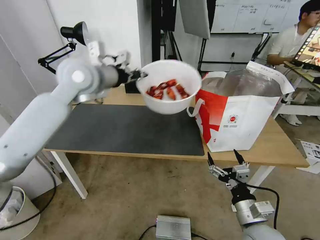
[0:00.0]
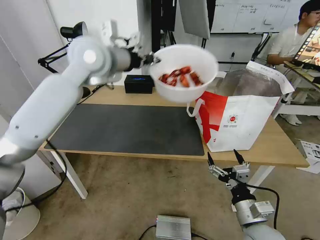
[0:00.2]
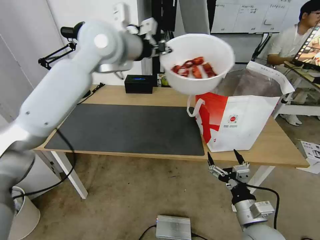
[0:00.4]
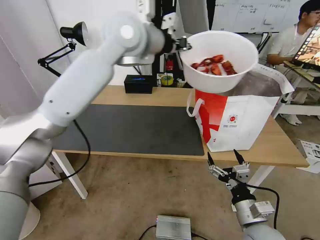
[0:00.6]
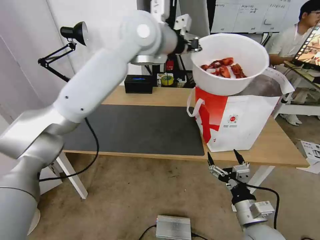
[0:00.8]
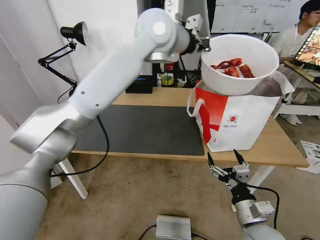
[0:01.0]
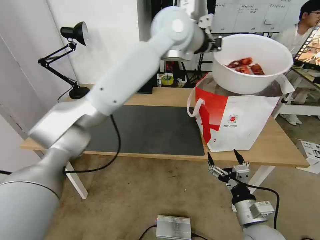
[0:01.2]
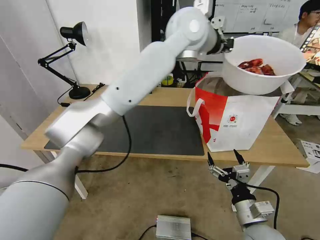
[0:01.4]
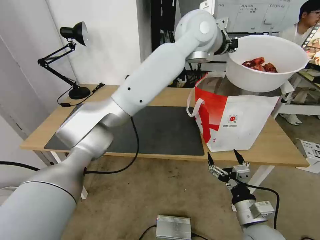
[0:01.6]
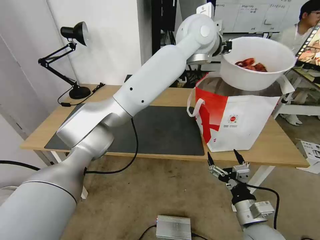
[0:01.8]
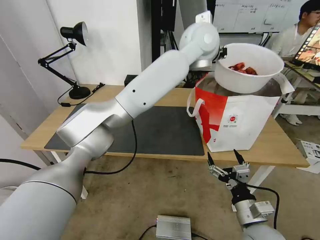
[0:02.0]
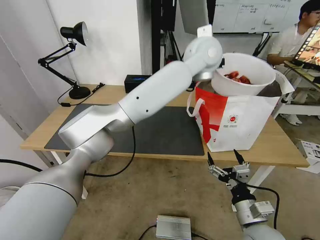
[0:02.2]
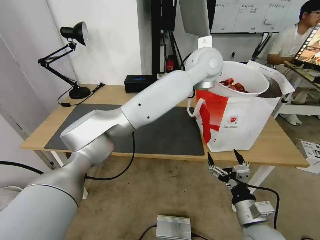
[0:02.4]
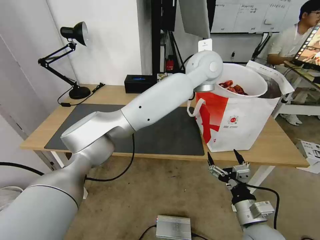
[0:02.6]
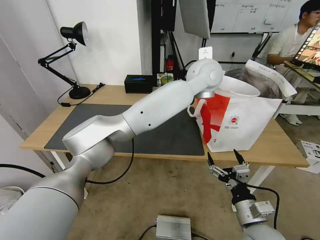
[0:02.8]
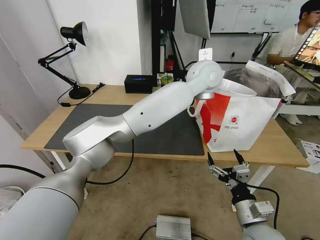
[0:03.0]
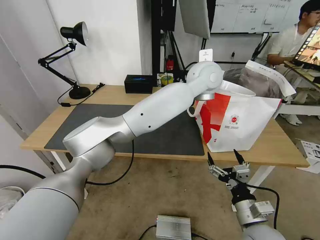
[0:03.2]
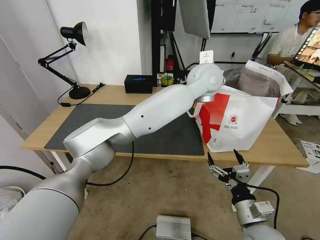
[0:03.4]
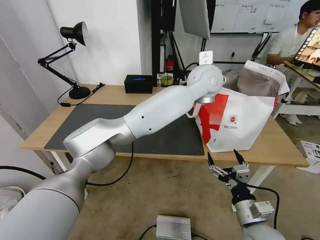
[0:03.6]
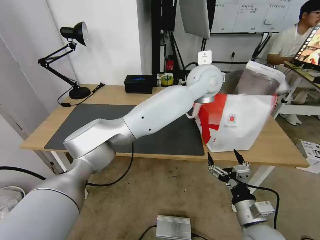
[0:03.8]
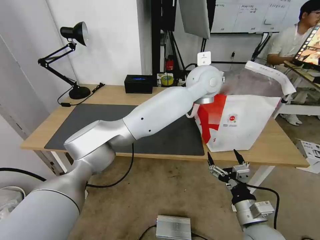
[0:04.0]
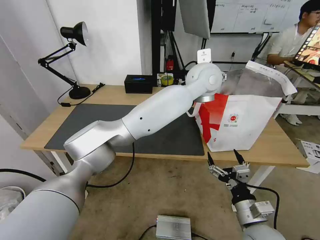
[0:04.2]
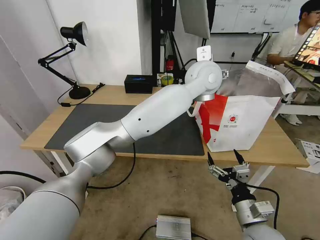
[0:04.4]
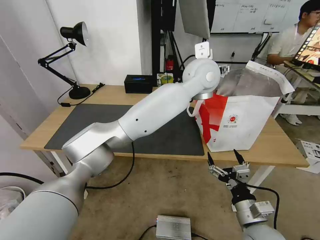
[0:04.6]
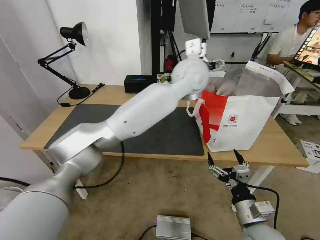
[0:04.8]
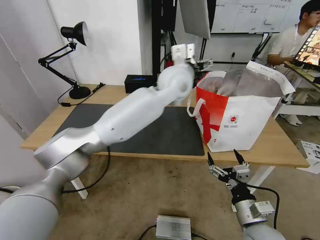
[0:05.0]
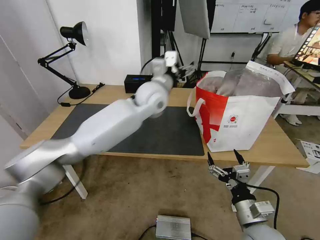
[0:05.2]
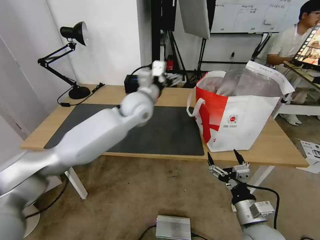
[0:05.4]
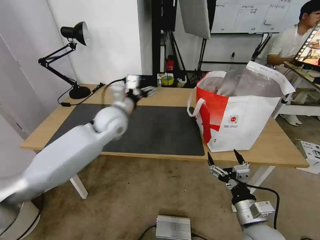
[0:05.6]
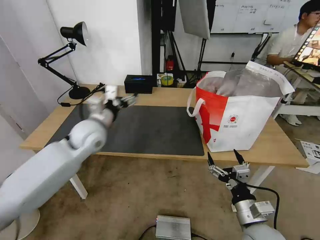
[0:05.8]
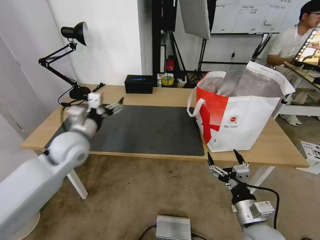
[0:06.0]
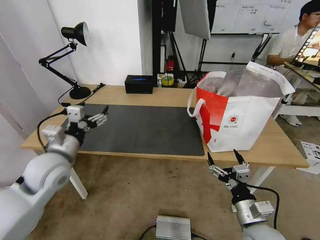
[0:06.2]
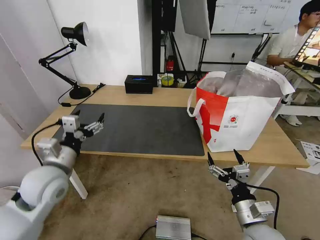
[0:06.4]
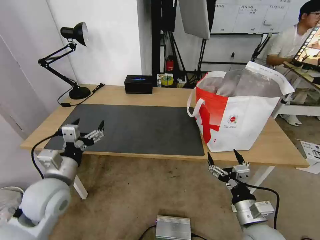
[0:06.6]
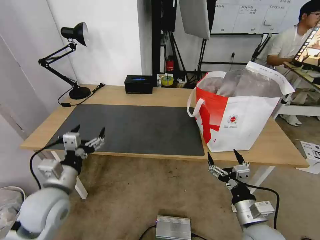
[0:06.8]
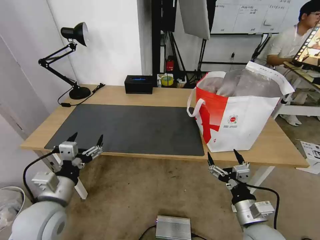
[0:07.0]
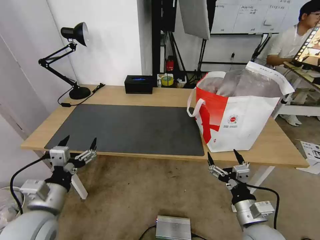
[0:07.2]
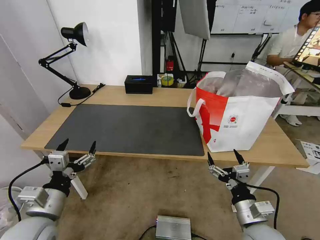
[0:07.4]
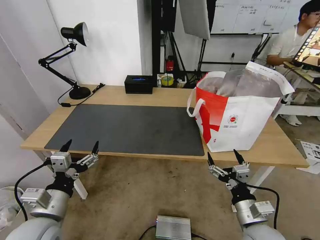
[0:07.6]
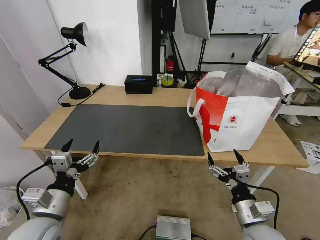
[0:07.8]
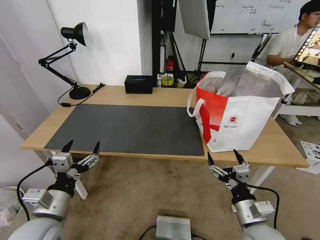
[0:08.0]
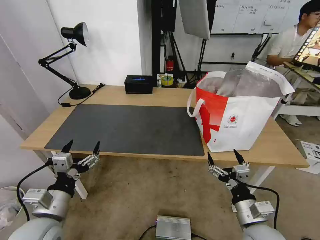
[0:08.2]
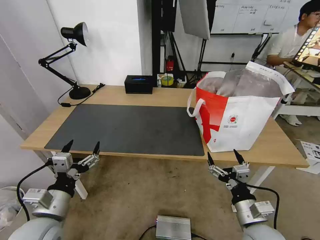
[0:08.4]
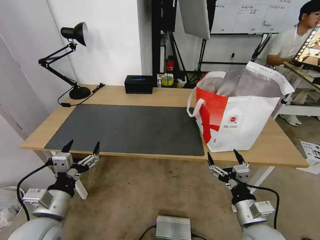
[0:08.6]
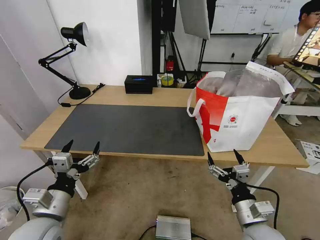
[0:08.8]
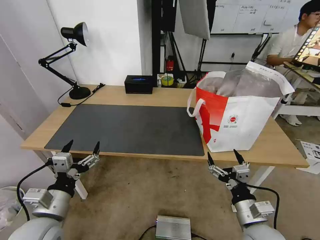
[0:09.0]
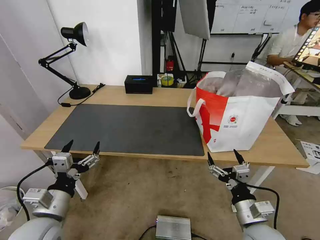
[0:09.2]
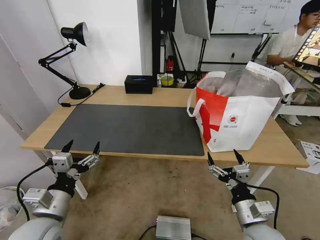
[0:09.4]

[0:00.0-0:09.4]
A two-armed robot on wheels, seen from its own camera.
Task of the whole recording: Pick up the trash from the table and place it into the takeout bag.
0.0 to 1.6 s: The left gripper goes approximately 30 cm to the right.
1.6 to 3.2 s: The left gripper is displaced downward by some 10 cm, and opens up.
3.2 to 4.8 s: The left gripper opens its fingers.
4.8 to 6.2 s: The left gripper shifts about 40 cm to the left, backward and downward.
6.2 to 7.8 s: The left gripper travels backward and downward by some 15 cm.
7.8 to 9.4 s: Both grippers stay put.

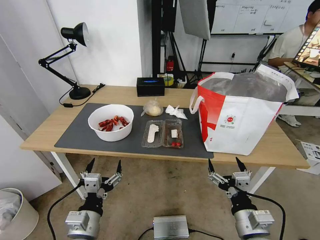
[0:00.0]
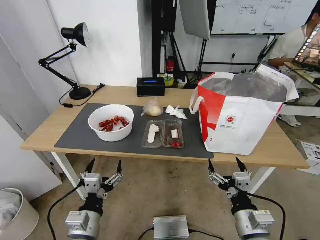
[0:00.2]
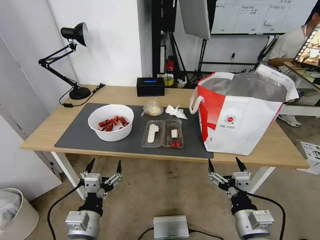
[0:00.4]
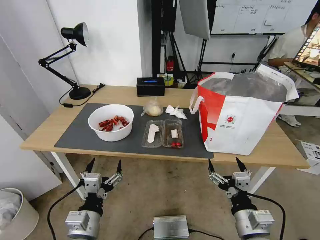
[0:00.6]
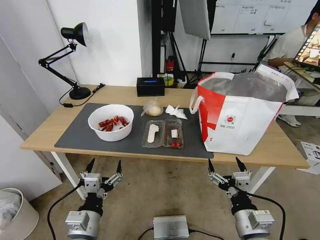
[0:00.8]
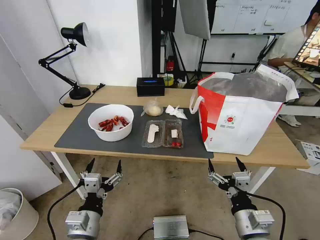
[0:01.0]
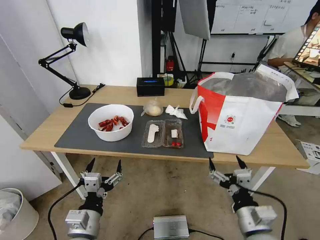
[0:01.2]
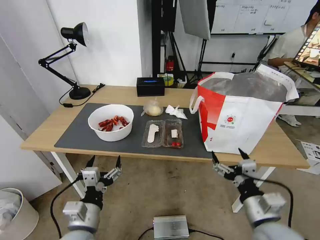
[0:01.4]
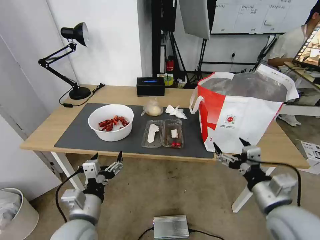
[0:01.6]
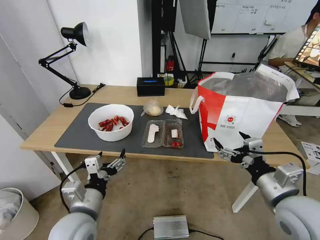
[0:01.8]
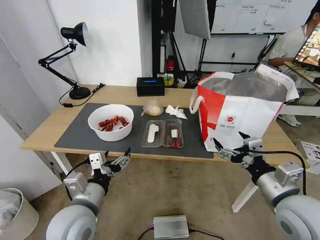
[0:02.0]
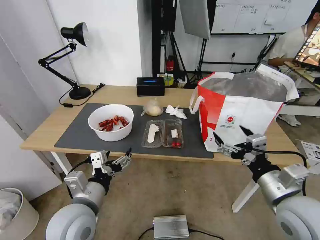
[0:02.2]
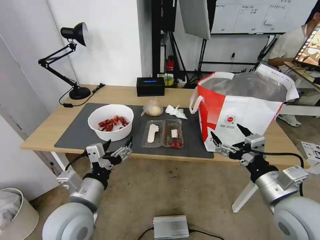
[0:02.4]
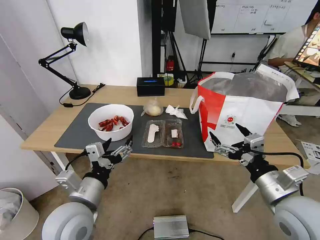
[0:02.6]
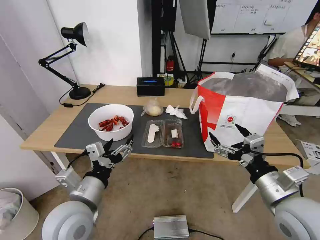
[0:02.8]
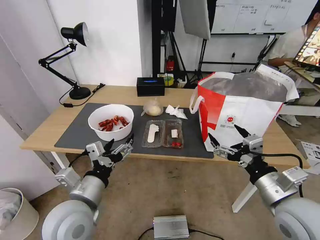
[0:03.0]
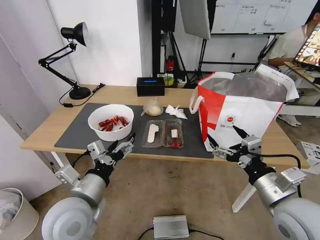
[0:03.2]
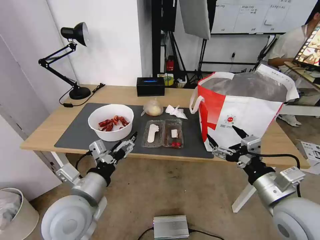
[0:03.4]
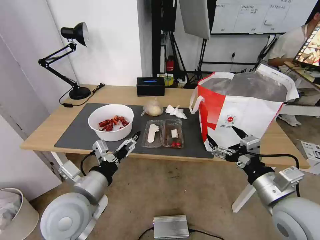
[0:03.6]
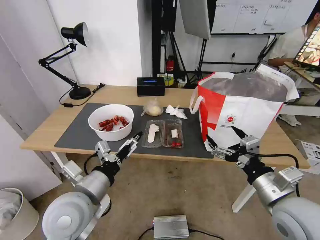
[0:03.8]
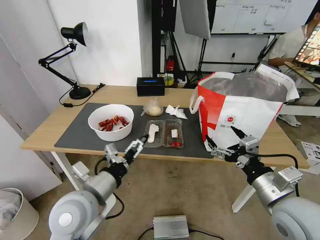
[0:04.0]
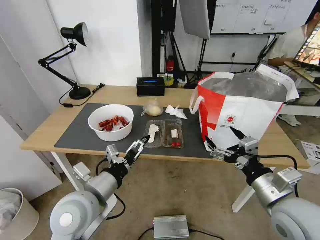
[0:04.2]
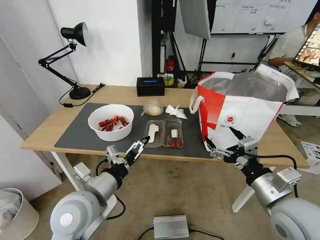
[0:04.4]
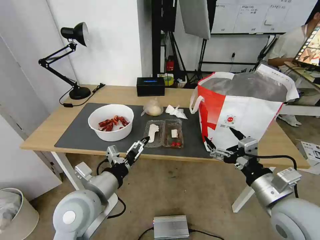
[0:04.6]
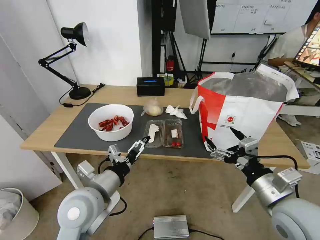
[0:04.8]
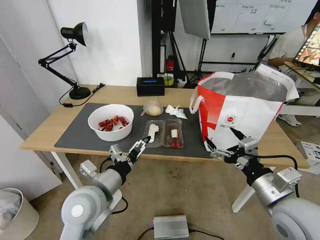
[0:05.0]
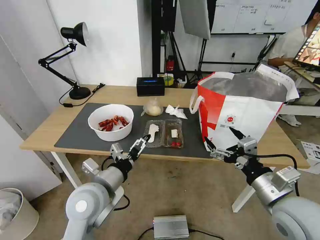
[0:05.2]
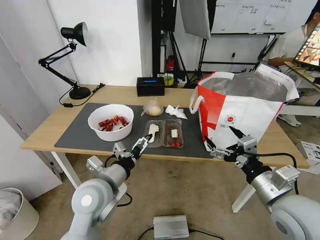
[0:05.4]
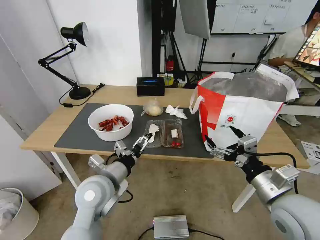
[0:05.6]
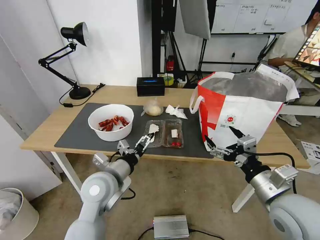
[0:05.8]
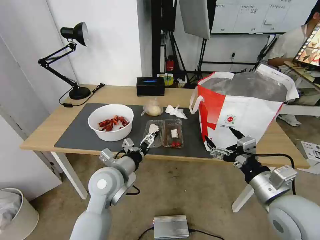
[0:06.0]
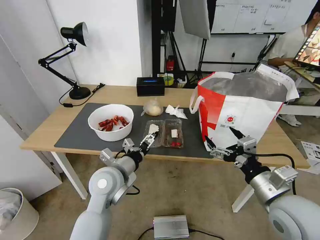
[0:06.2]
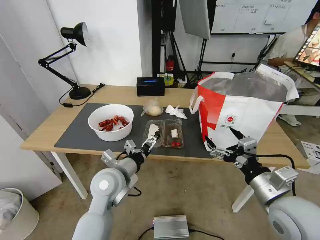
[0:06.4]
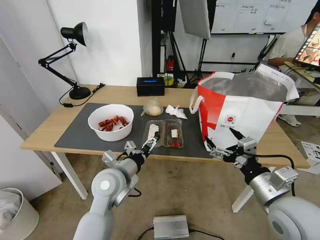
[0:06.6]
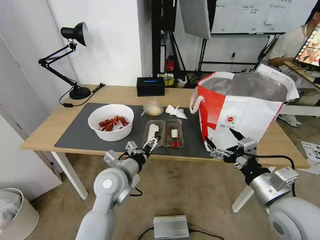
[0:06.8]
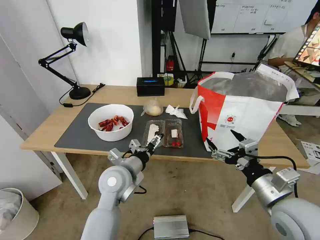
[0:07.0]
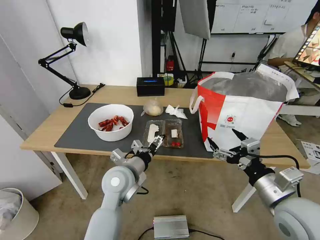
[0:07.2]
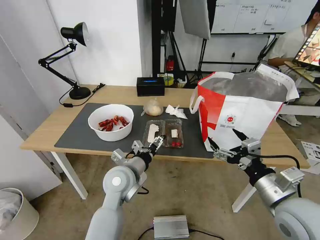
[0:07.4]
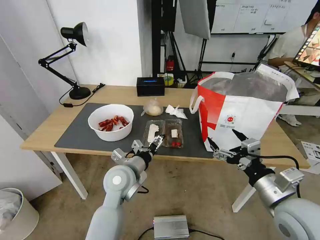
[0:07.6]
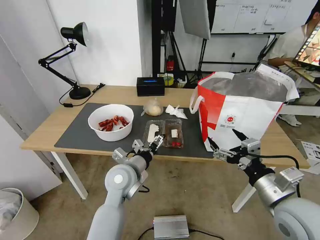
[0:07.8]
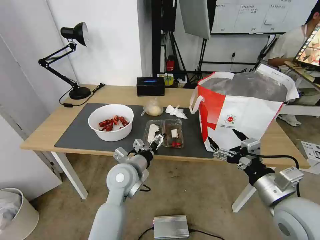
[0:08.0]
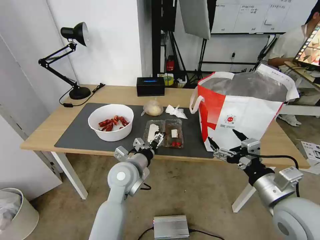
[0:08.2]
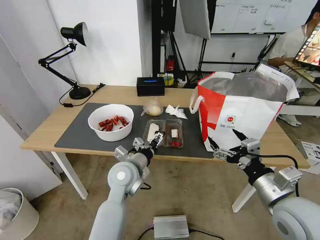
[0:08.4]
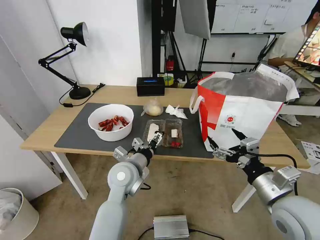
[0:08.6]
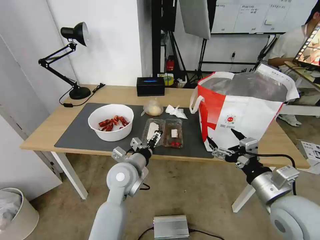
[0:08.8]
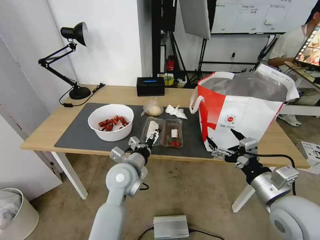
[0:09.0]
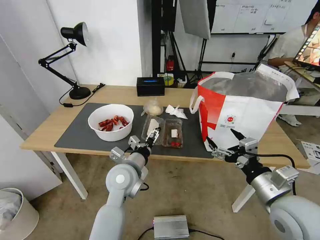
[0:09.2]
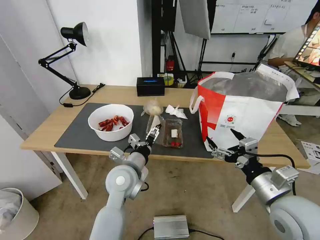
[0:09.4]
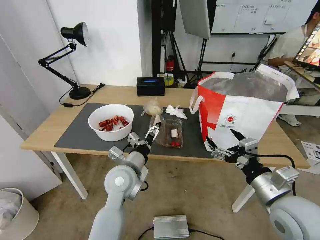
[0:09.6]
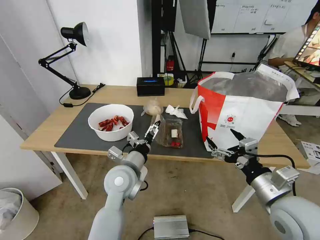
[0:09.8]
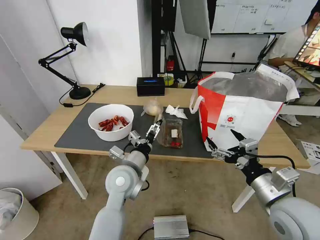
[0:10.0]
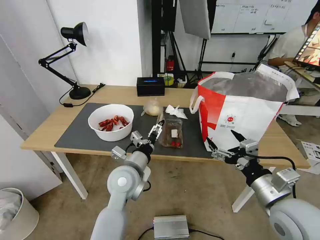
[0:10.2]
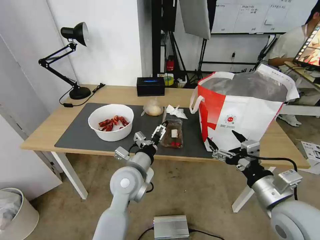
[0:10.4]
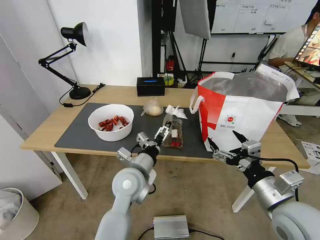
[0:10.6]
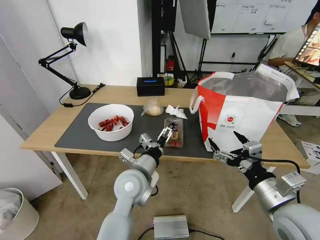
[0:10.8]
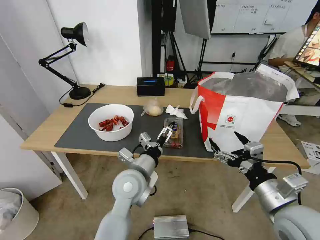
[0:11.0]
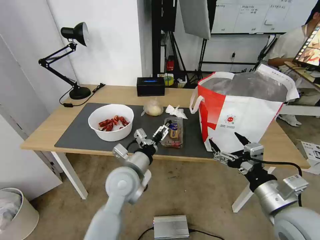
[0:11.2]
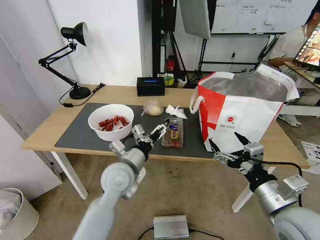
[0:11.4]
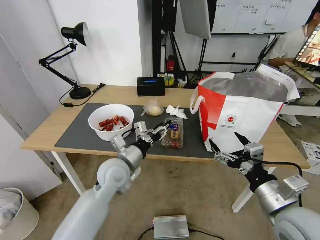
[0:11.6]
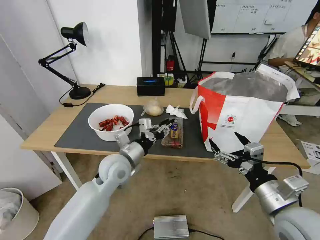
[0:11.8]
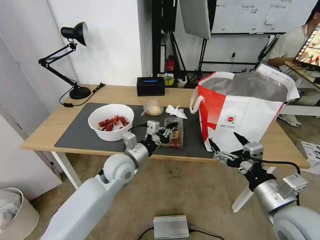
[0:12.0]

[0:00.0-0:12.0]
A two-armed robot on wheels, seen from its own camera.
Task of the whole recording: Pick up the trash from the table and place it into the takeout bag.
1.6 to 3.0 s: The left gripper travels upward by approximately 5 cm.
4.4 to 6.0 s: The left gripper travels forward by approximately 10 cm.
6.0 to 10.4 s: There are only small adjustments of the grippers.
10.4 to 12.0 s: The left gripper heads forward, covering roughly 5 cm, and closes.

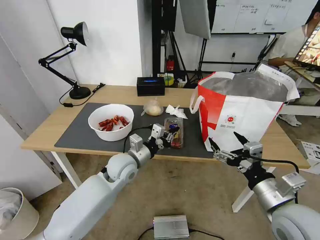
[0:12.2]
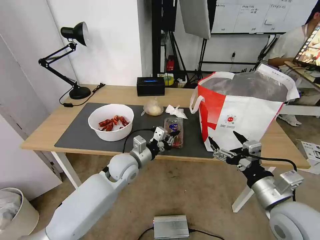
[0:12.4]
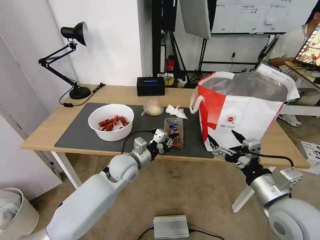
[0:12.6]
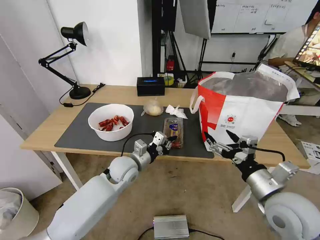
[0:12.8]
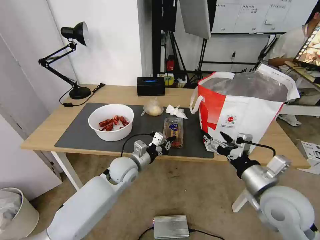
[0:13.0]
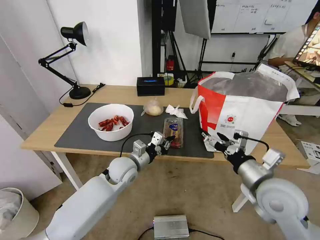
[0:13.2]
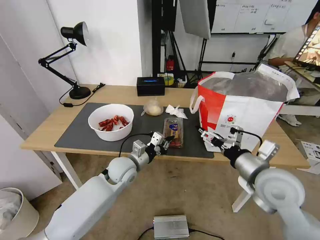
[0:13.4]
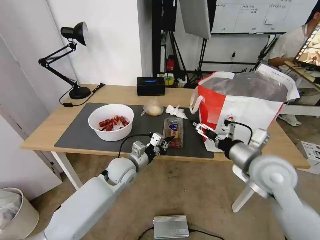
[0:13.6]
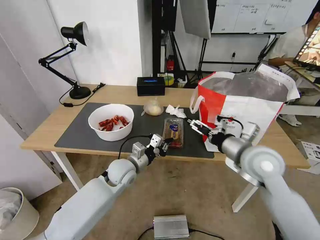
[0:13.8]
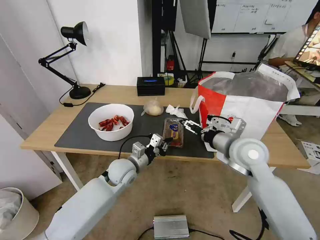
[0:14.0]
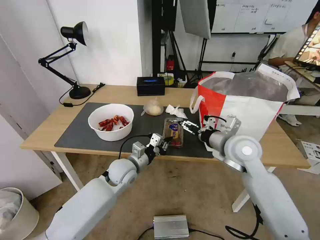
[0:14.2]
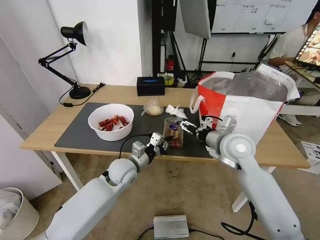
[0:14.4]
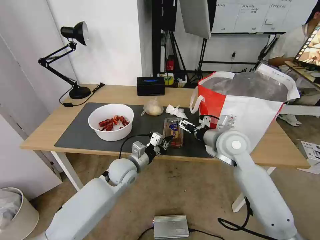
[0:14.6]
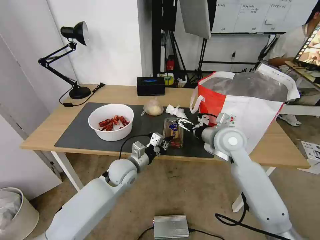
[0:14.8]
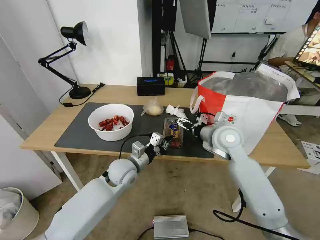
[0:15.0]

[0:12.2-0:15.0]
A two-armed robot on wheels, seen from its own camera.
Task of the whole recording: Pick up the trash from the table and place it into the takeout bag.
12.2 to 13.6 s: The right gripper moves forward, roughly 10 cm.
13.6 to 15.0 s: The right gripper is displaced forward and to the left by about 15 cm.
